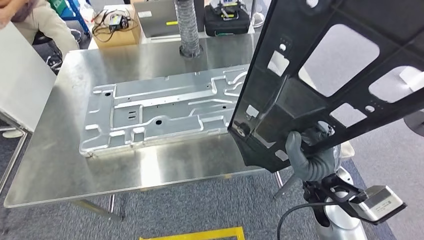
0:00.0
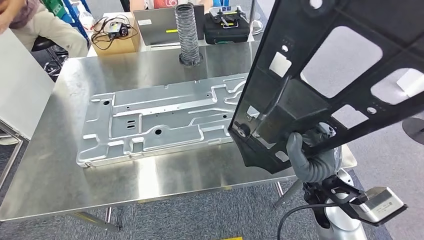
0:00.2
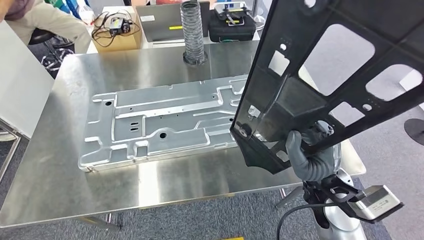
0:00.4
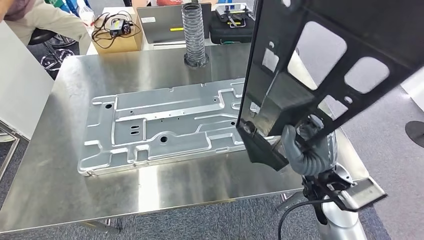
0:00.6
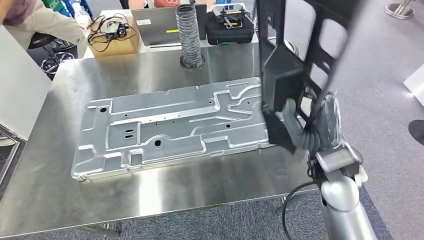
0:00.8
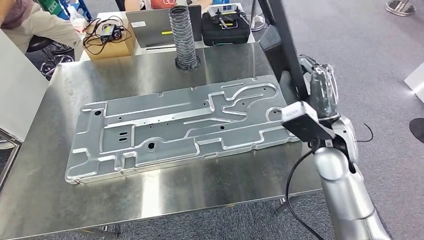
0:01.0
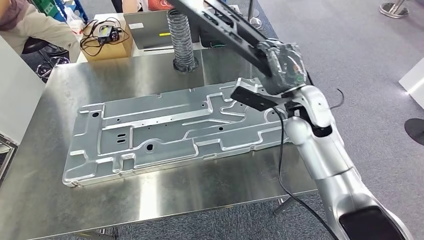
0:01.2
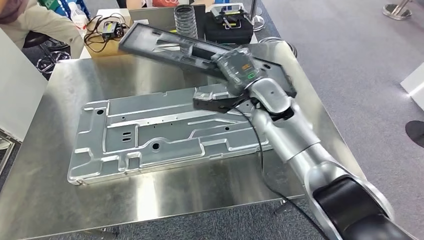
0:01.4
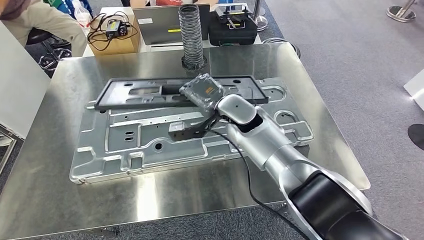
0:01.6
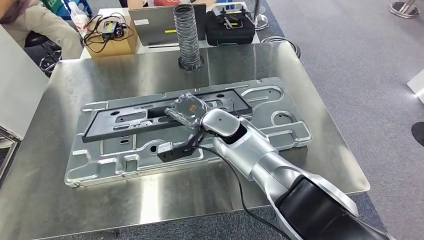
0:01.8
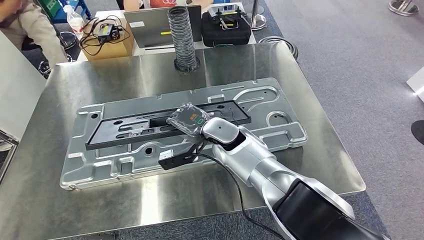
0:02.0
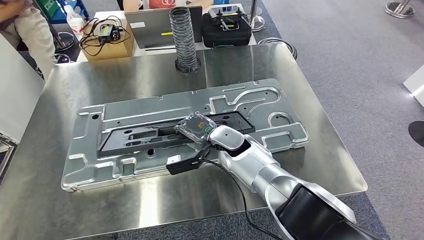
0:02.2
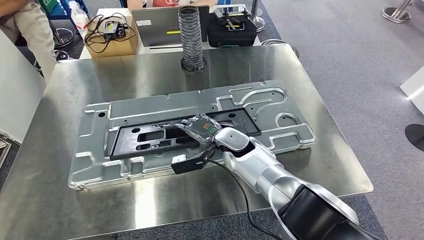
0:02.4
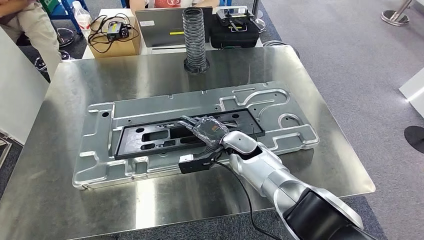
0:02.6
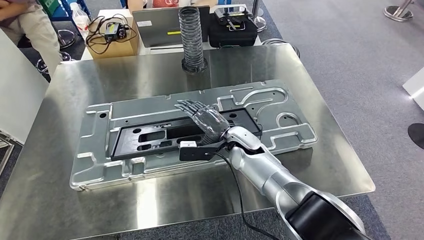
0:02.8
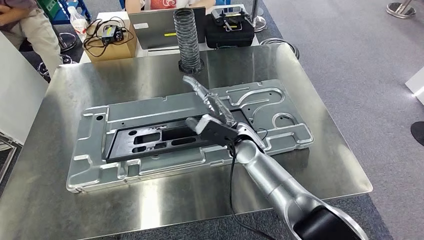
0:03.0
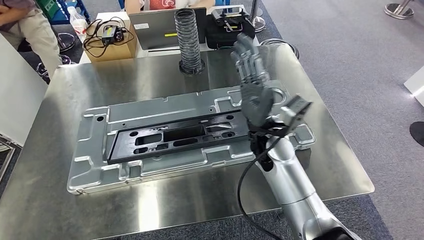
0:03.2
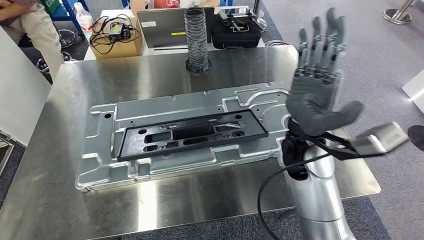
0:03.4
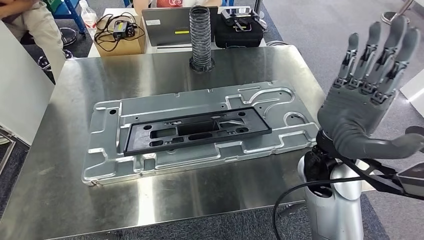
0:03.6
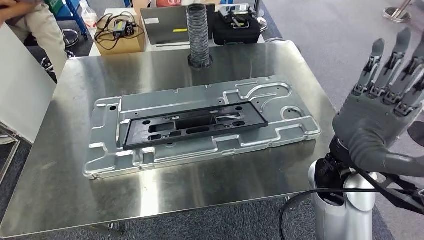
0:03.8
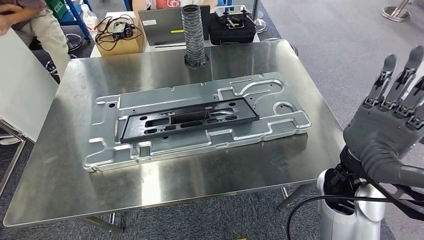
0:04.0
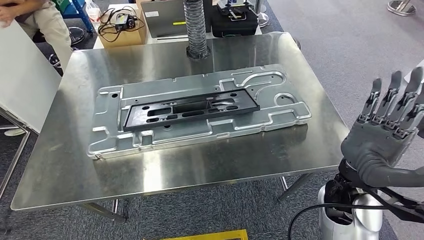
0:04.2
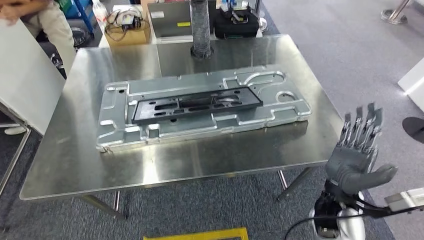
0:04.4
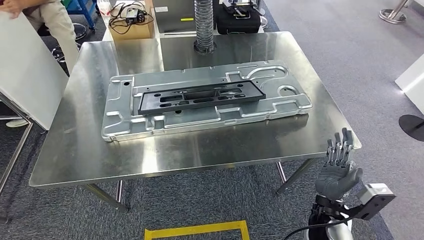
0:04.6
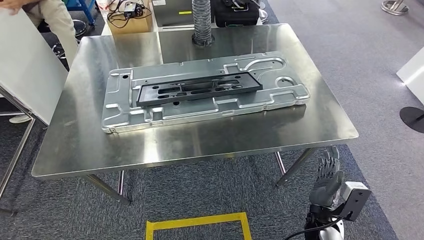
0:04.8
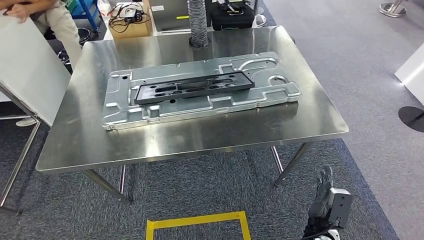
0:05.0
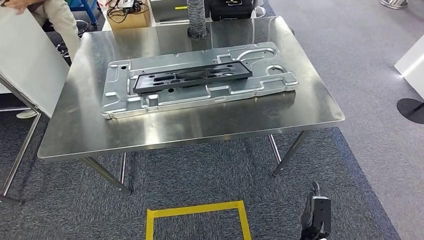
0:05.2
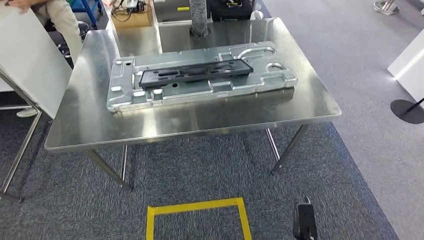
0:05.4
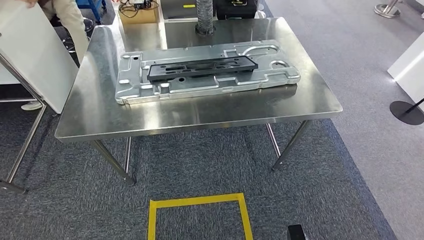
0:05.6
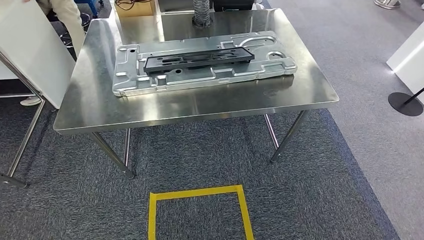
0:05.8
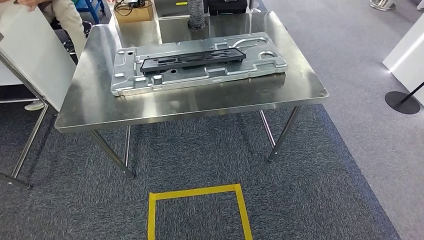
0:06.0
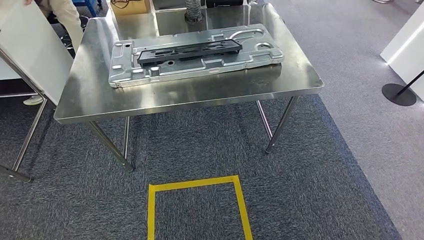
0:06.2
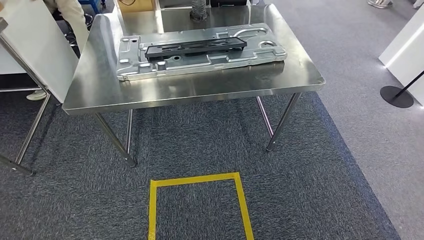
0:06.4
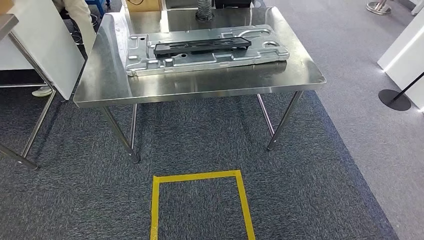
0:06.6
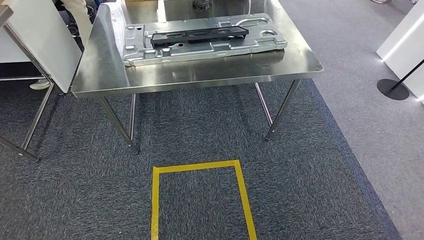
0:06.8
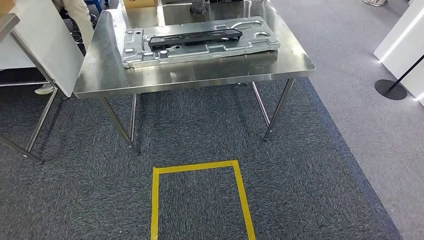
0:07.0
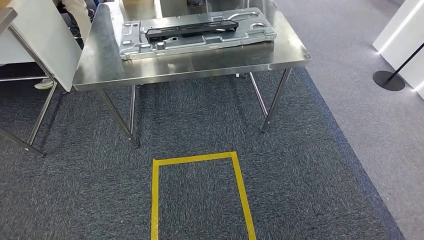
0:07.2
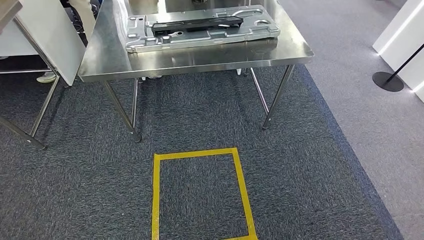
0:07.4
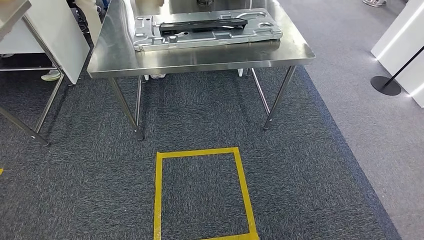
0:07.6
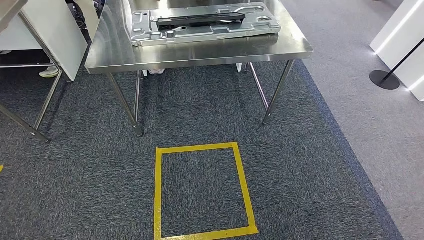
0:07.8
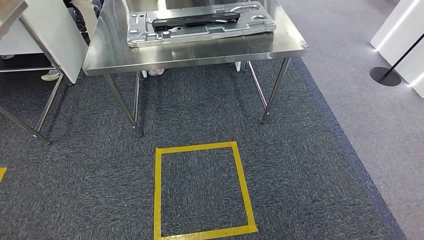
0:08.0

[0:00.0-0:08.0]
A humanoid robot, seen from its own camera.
Step, 0:00.0 to 0:04.4: Insert the small component into the corresponding slot on the workbench.
Step, 0:04.8 to 0:08.0: Return to the initial position at the workbench.
